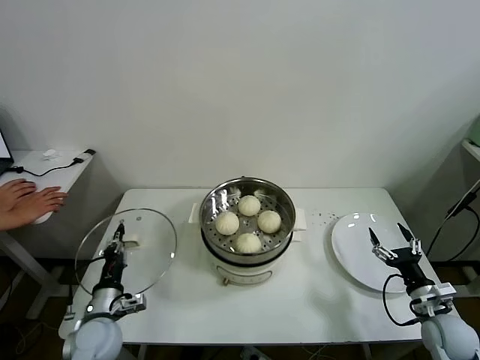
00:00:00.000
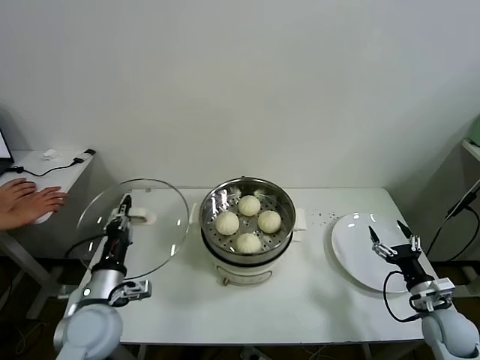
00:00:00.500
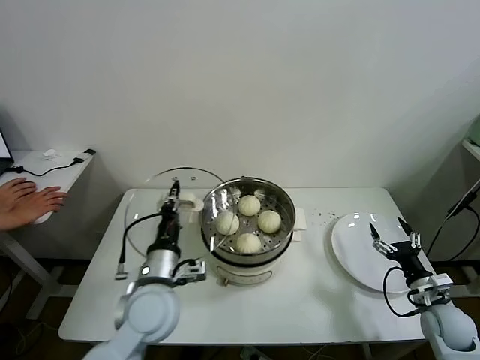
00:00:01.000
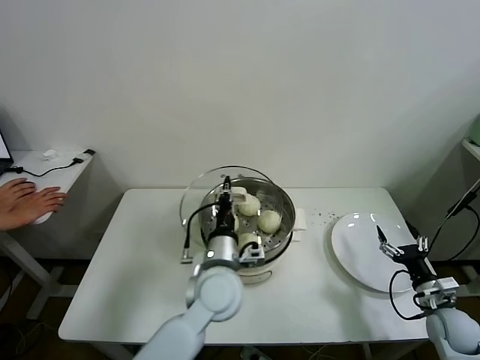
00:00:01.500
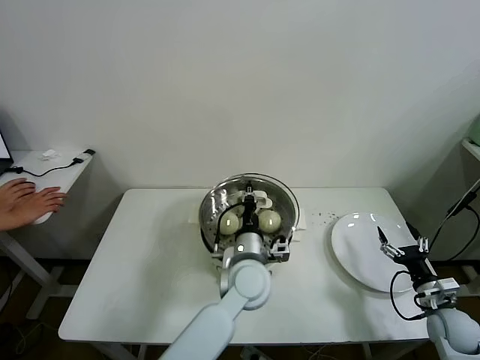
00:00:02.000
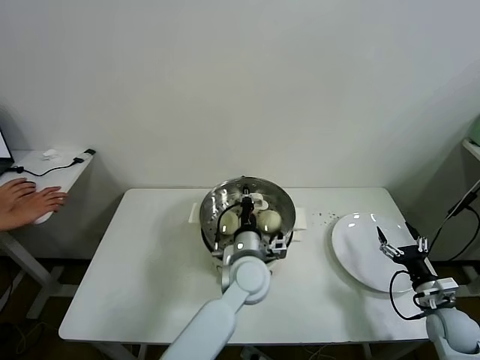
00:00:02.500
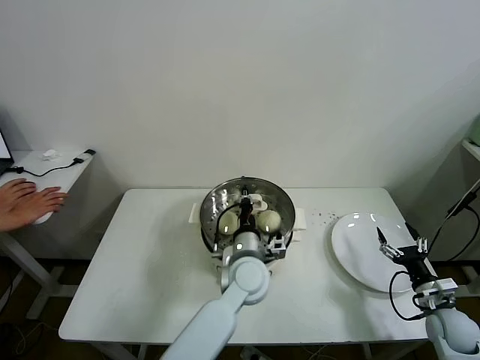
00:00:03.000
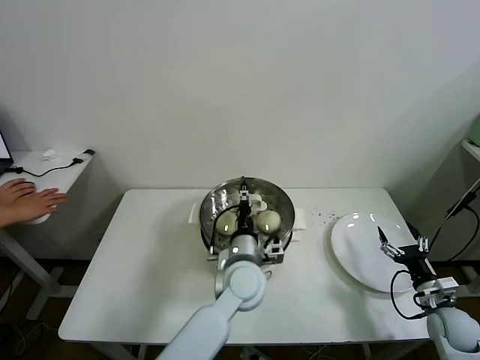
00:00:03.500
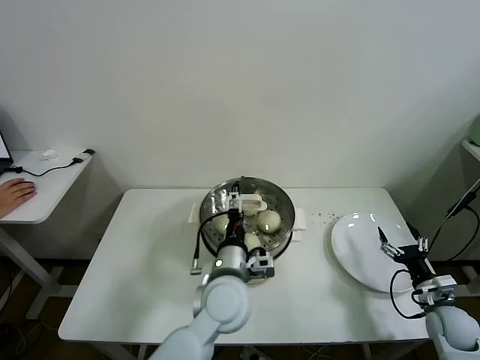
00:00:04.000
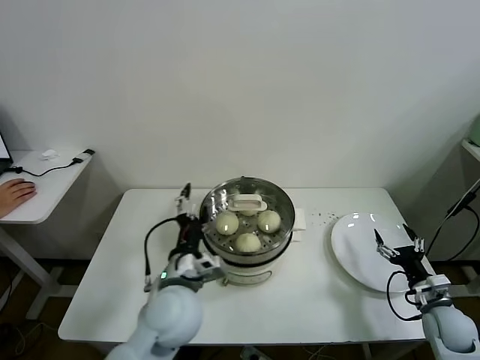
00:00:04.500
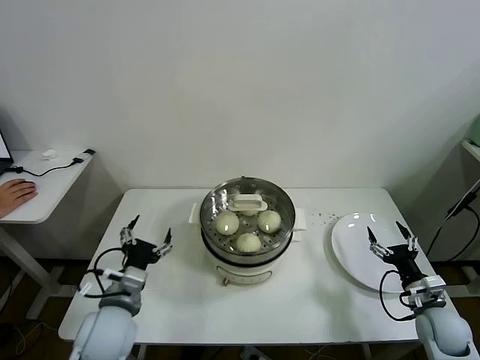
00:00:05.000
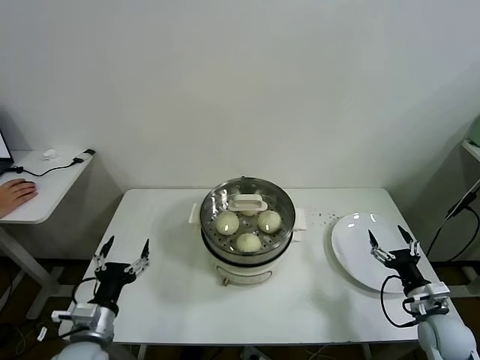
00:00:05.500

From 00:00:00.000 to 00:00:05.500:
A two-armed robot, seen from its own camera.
Task of the whole recording: take steamed baozi put them in steamer.
Step, from 00:00:00.000 to 00:00:03.500: Place the pot lid on the steamer with left gripper.
From 00:00:00.000 to 00:00:02.000: The left gripper heads to the right, covering roughly 30 cm.
From 00:00:02.000 to 00:00:03.500: The left gripper opens.
From 00:00:03.500 to 00:00:05.500: The left gripper goes some 35 cm to the left and backward, and opens up. Meanwhile the right gripper shifts by roughly 5 cm.
